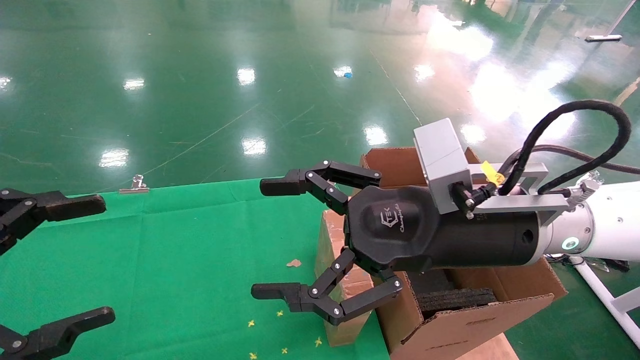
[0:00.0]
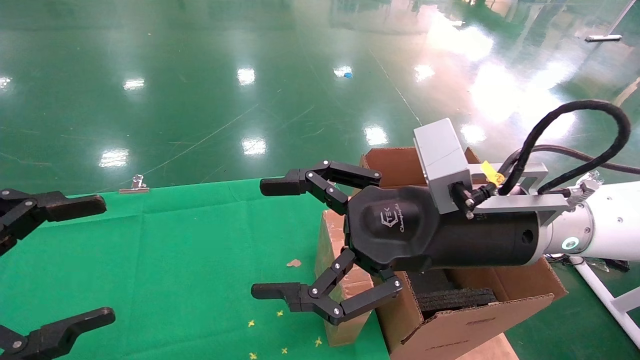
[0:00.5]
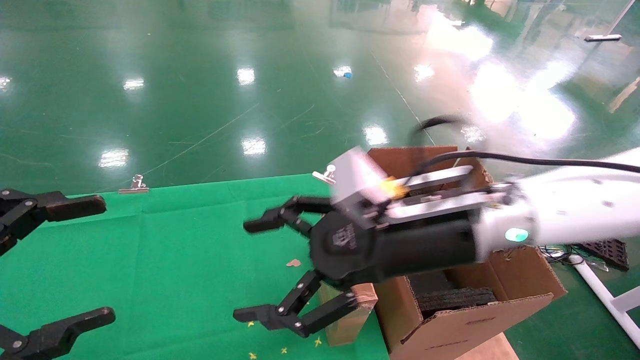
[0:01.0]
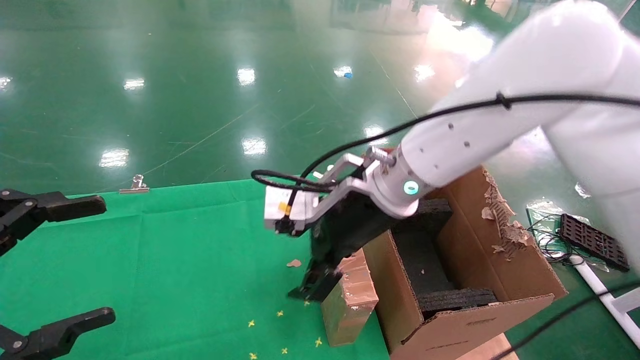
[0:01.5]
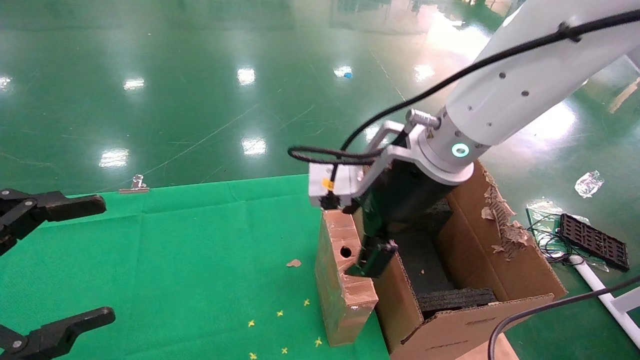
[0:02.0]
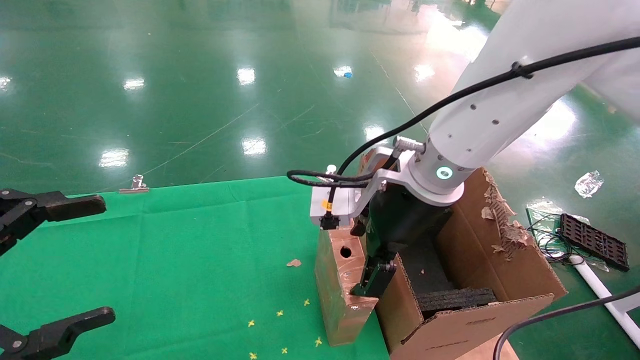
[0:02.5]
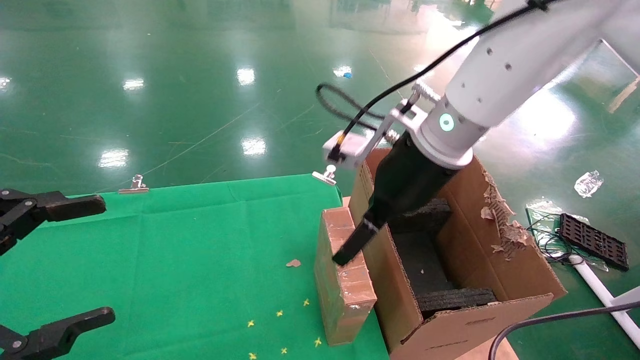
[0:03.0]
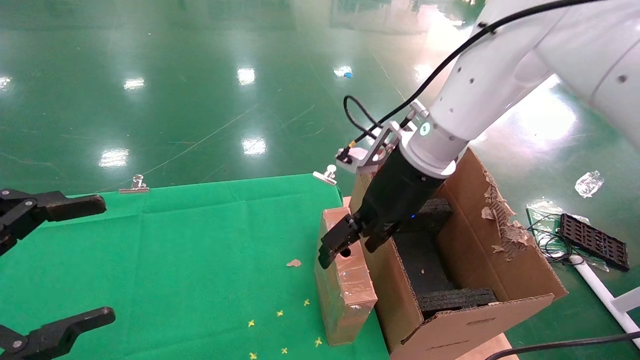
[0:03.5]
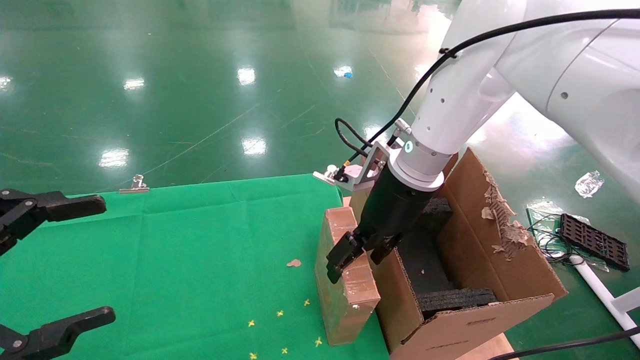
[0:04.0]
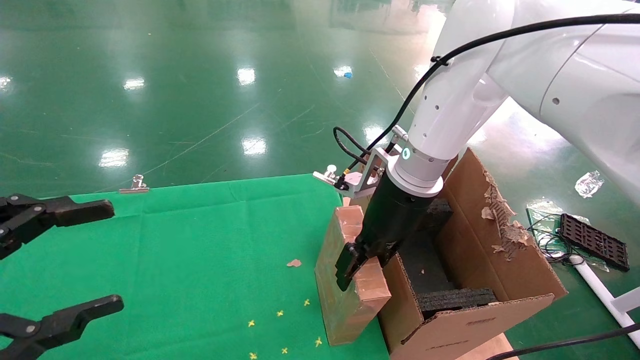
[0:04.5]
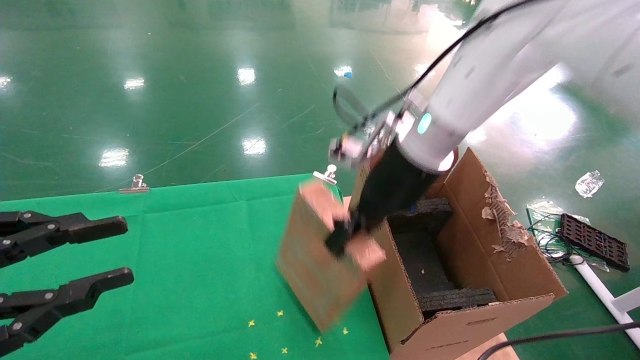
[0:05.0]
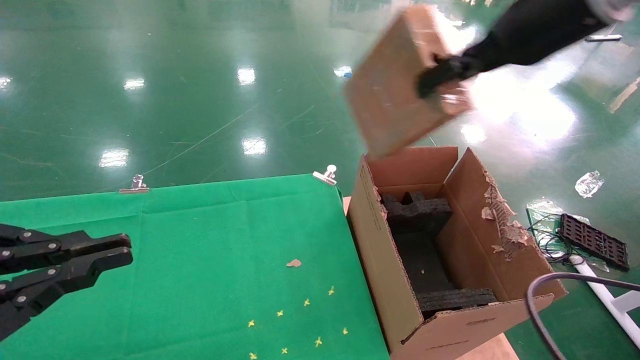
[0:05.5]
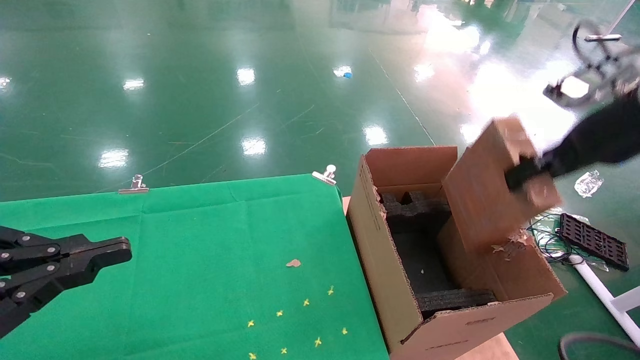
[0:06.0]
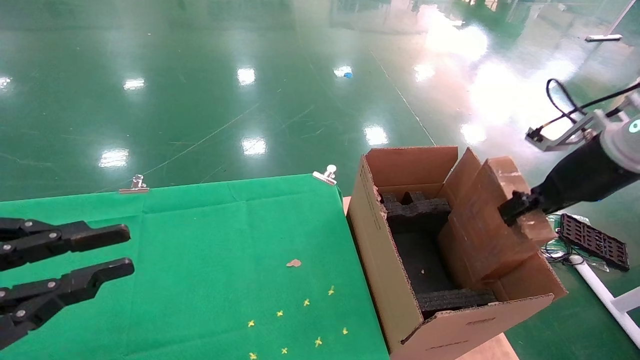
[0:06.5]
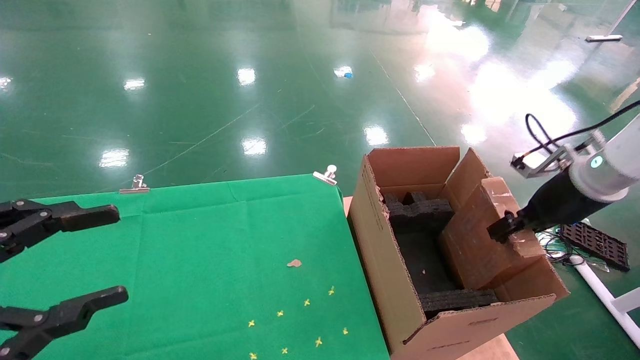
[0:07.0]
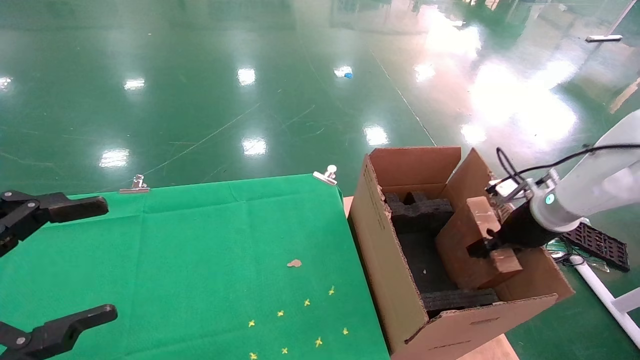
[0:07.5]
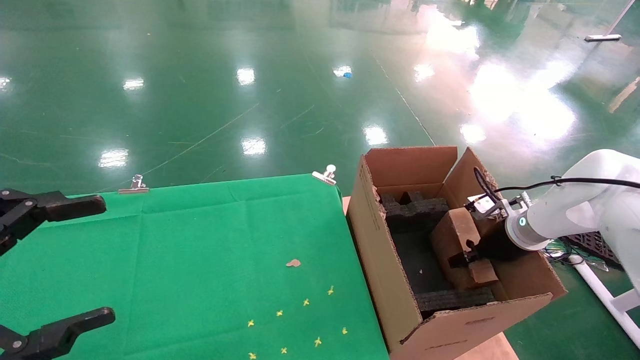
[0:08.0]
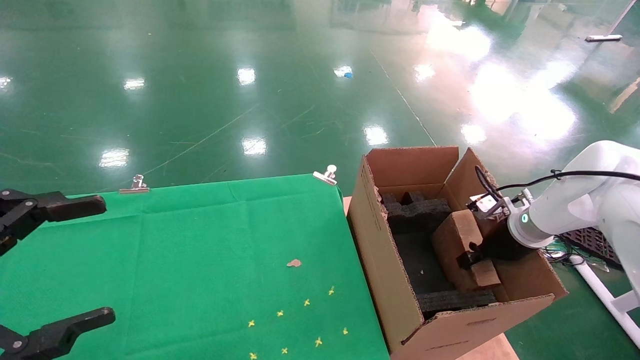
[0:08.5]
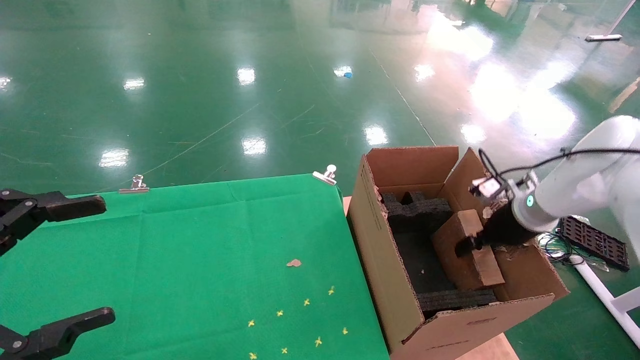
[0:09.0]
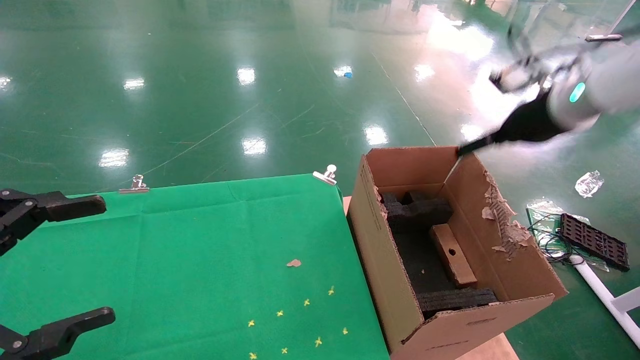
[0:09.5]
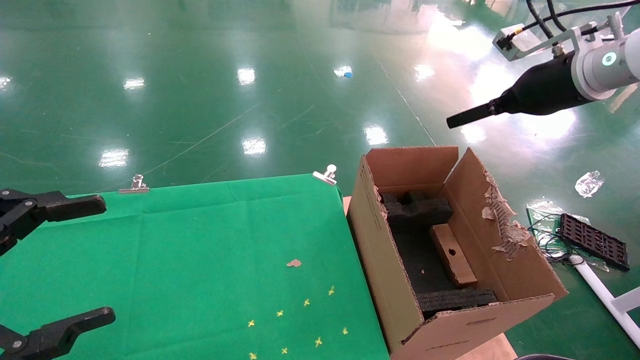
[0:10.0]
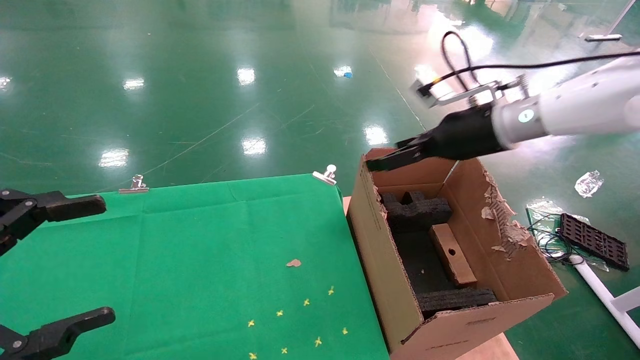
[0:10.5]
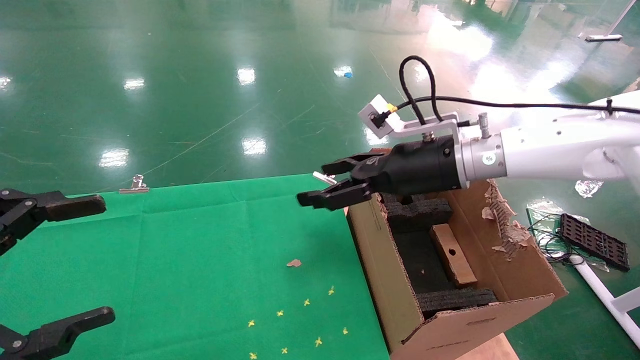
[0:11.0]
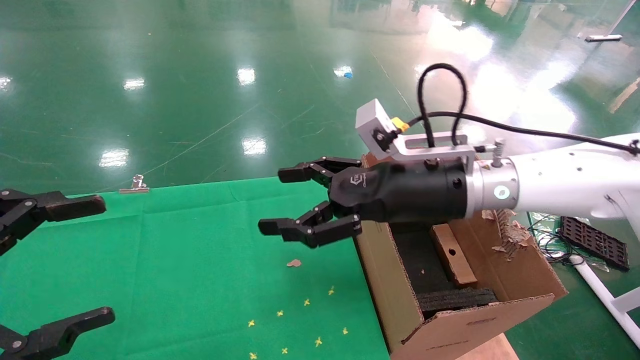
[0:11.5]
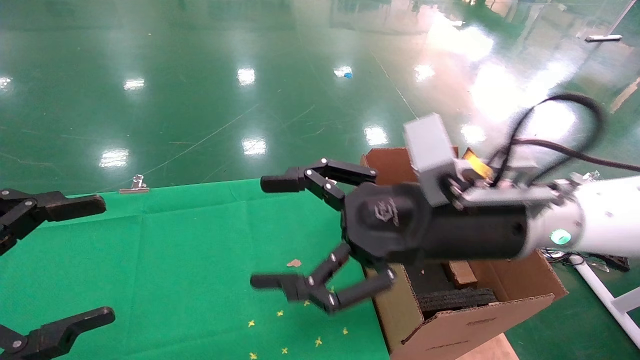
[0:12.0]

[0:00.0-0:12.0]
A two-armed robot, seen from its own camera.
Task of the whole recording: using a robotic arm to pick up a cardboard box and palace it the carton.
Step, 0:01.0 to 0:04.5: Pick up the mouse and the power cord paper box.
Step, 0:05.0 to 0:09.5: Place the mouse and the power cord paper box into the container.
0:00.0 to 0:02.0: The right gripper shifts roughly 5 cm forward.
0:02.0 to 0:04.0: The right gripper shifts about 5 cm forward.
0:04.0 to 0:06.0: The left gripper closes its fingers. The right gripper shifts roughly 25 cm to the right, and closes its fingers.
0:06.0 to 0:08.0: The right gripper heads downward and forward, covering roughly 25 cm. Meanwhile the left gripper opens up.
0:08.0 to 0:10.0: The right gripper shifts about 25 cm upward, and opens.
0:10.0 to 0:12.0: The right gripper goes roughly 25 cm to the left, backward and downward.

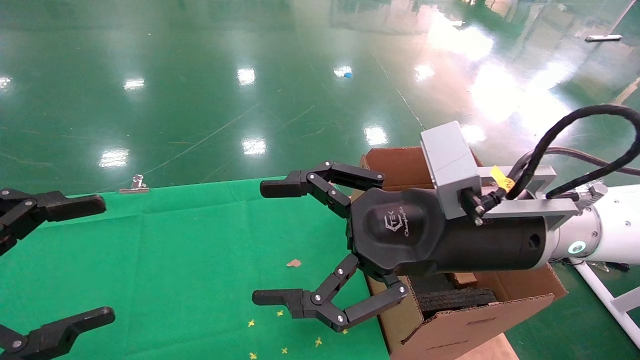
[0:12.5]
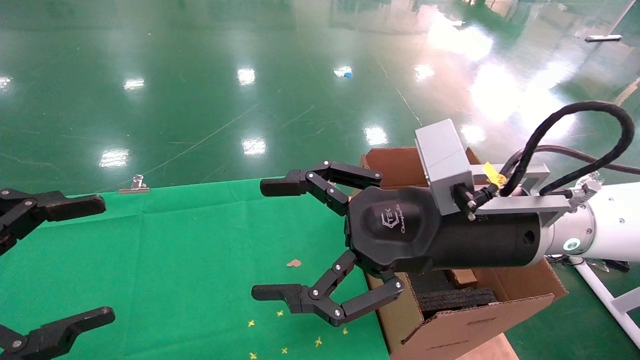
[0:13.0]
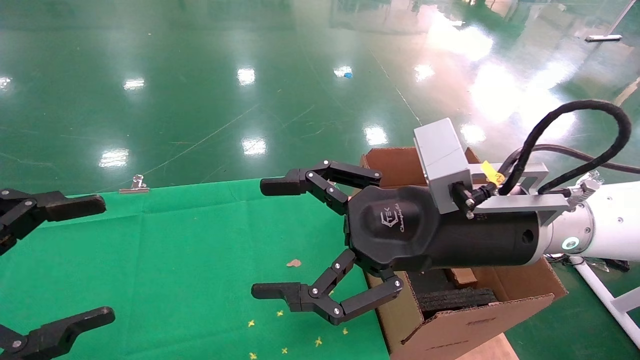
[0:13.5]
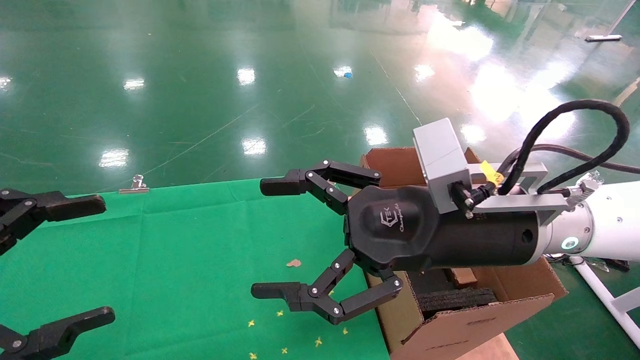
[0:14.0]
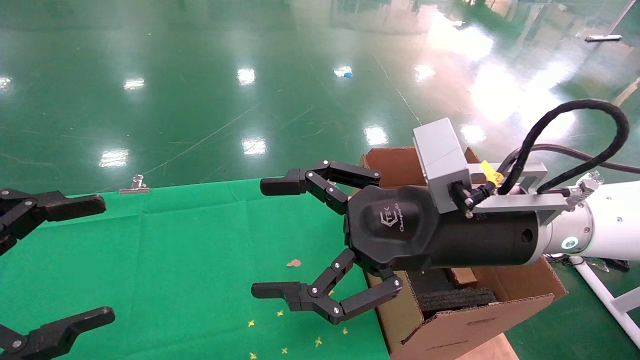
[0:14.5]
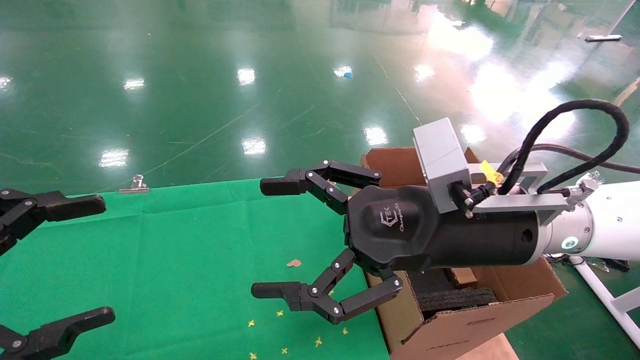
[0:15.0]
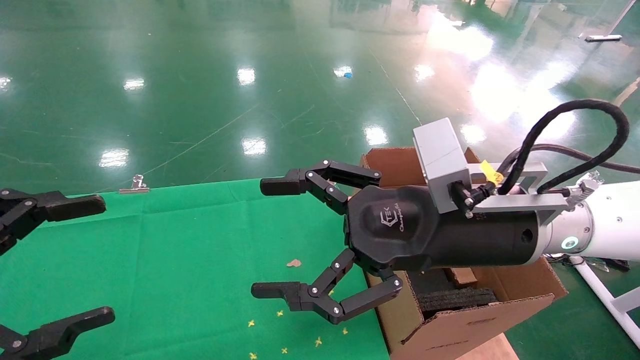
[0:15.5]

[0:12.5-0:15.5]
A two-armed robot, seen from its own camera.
Task of the whole recording: using a robotic arm to pick up a cardboard box and palace it the carton.
0:12.5 to 0:15.5: The two grippers keep their place.

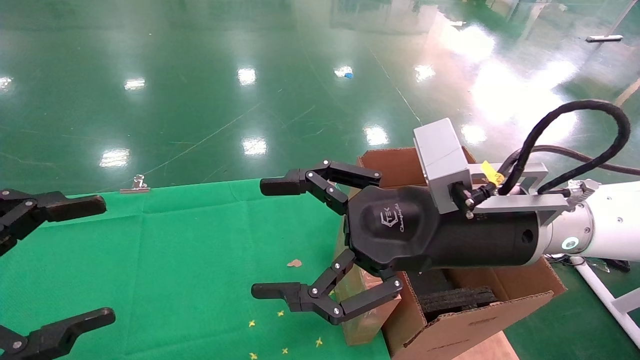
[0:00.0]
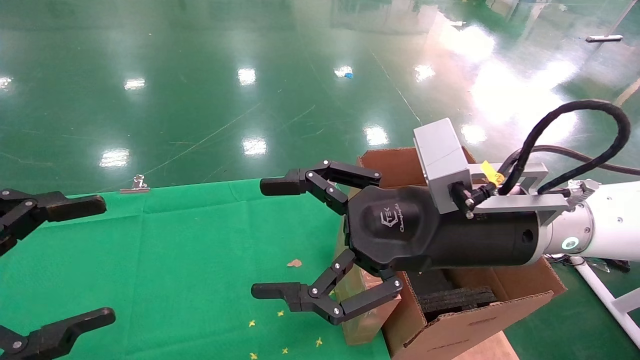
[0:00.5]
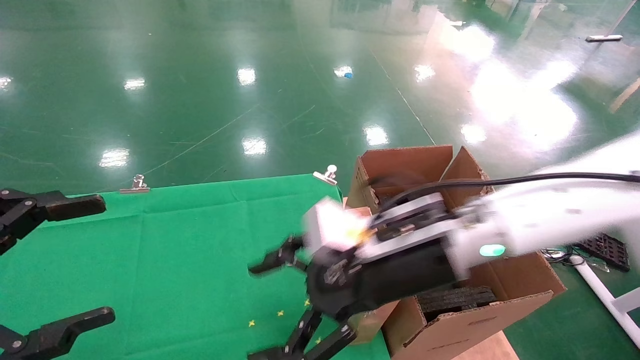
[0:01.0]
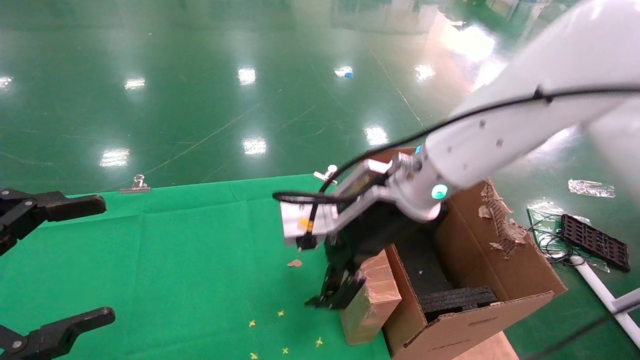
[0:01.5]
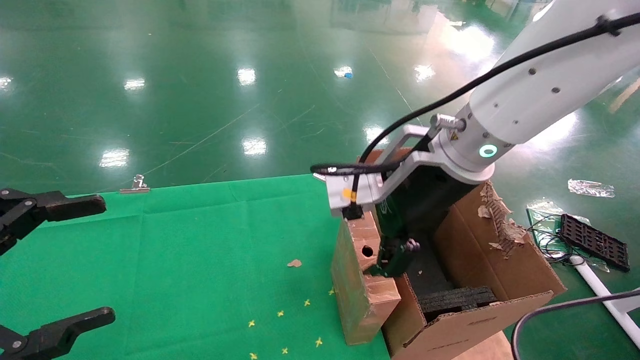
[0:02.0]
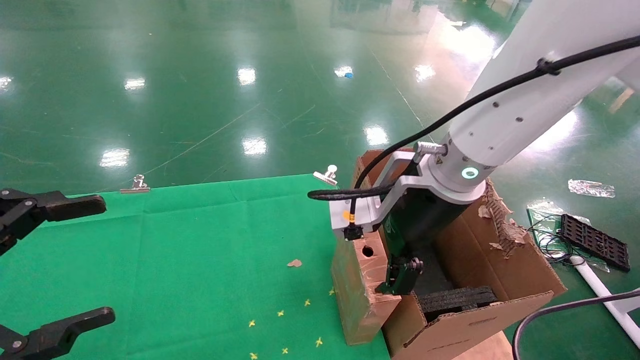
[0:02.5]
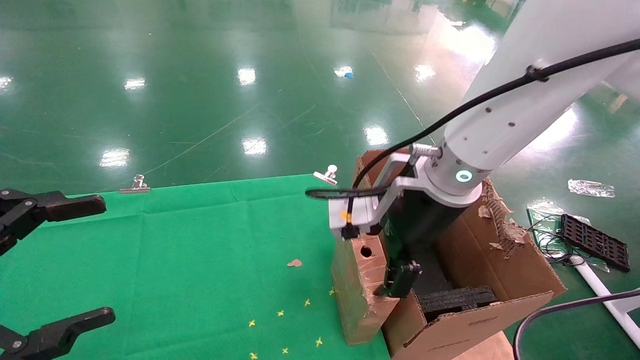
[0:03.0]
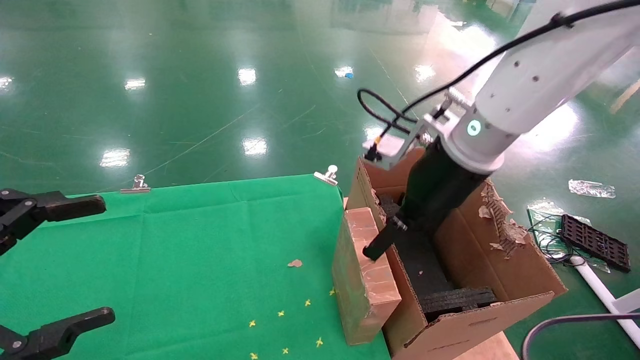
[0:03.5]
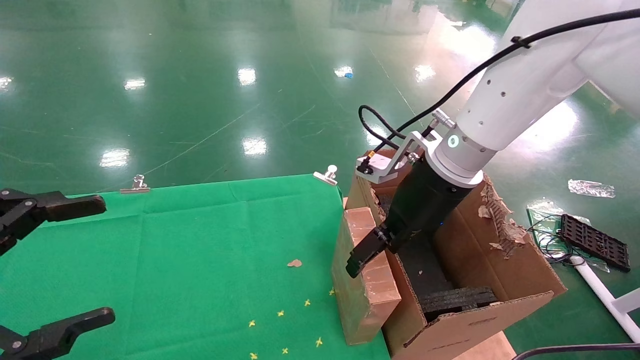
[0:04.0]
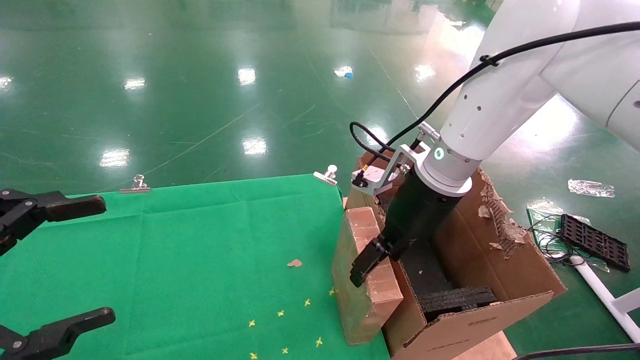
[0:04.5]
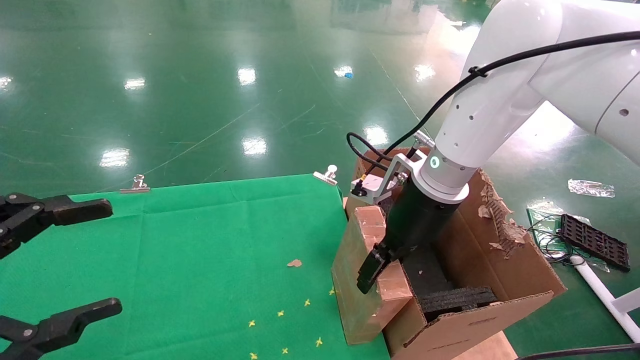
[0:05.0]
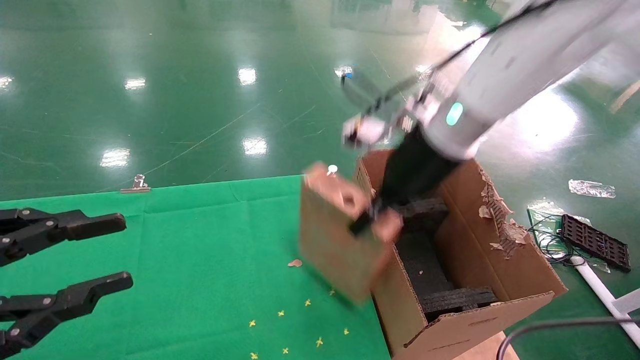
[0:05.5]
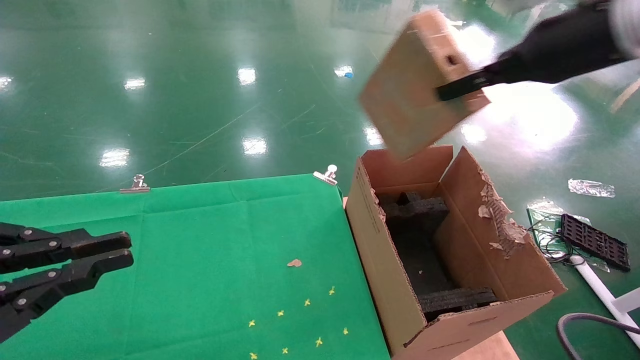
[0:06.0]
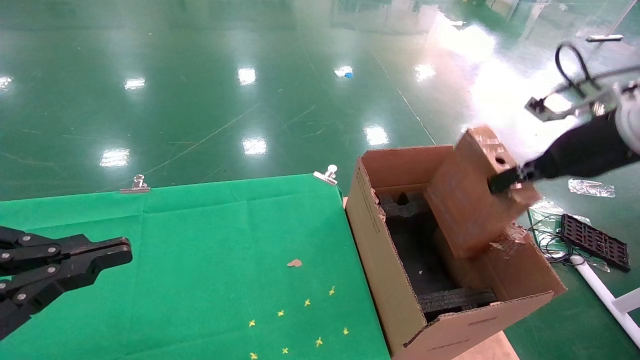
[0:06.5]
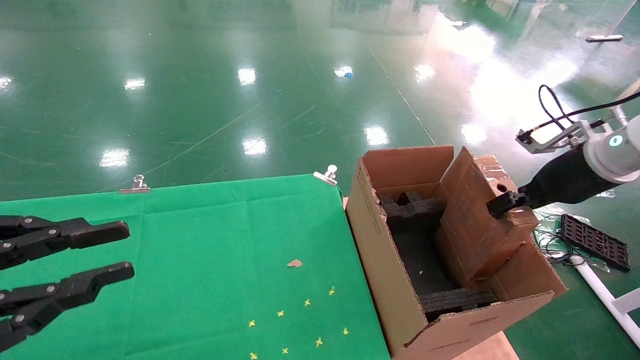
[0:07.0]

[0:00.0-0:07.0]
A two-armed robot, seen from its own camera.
Task of the whole recording: using a robotic arm to pick up a cardboard box and palace it the carton.
Step, 0:01.0 to 0:05.5: Pick up the mouse and the power cord paper box.
0:00.0 to 0:02.0: The right gripper shifts approximately 5 cm forward.
0:03.5 to 0:05.0: The right gripper moves some 5 cm.
0:05.0 to 0:07.0: The right gripper shifts roughly 25 cm to the right, and closes its fingers, while the left gripper closes up.
